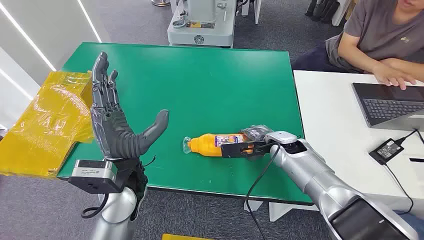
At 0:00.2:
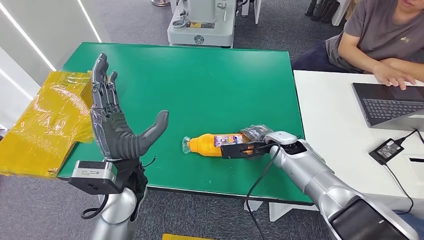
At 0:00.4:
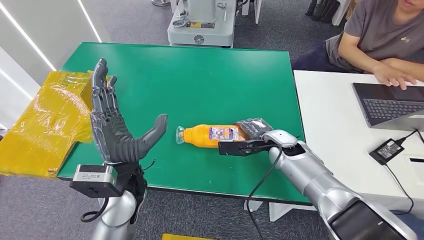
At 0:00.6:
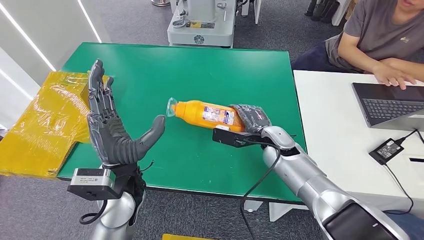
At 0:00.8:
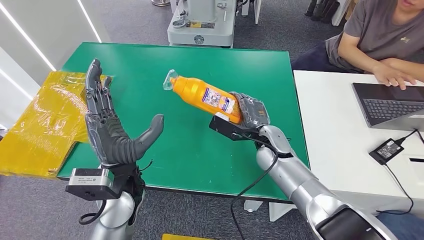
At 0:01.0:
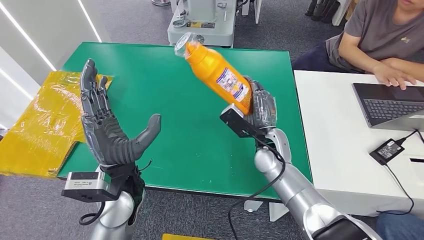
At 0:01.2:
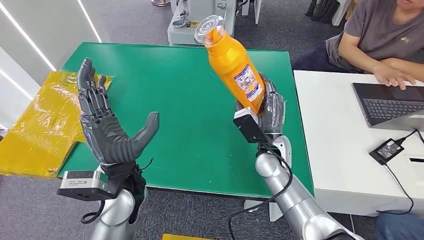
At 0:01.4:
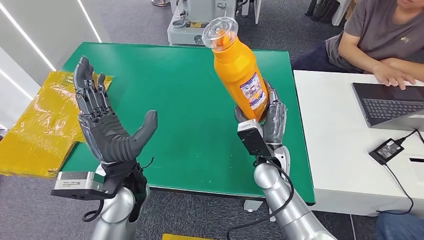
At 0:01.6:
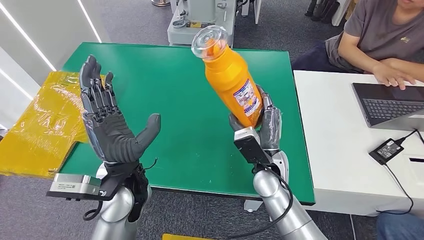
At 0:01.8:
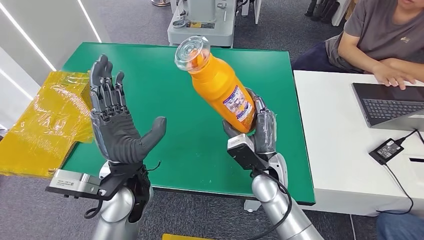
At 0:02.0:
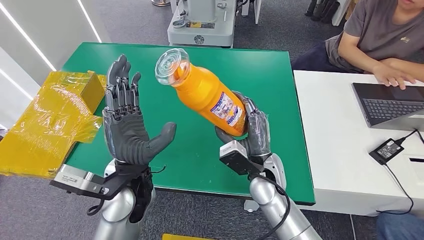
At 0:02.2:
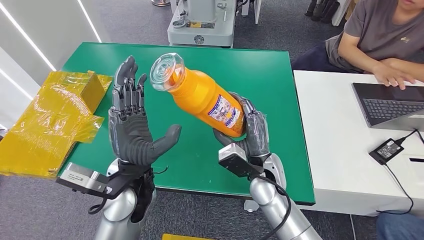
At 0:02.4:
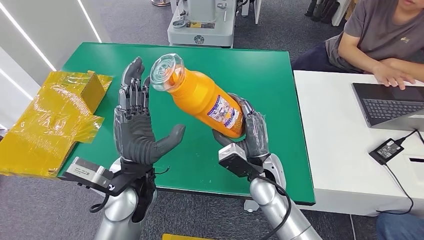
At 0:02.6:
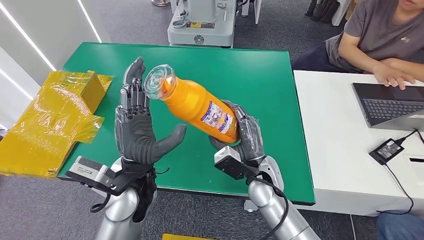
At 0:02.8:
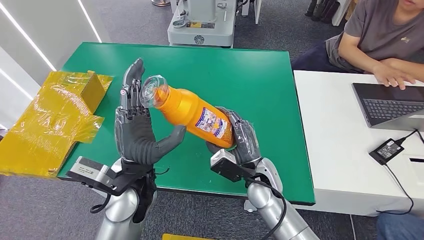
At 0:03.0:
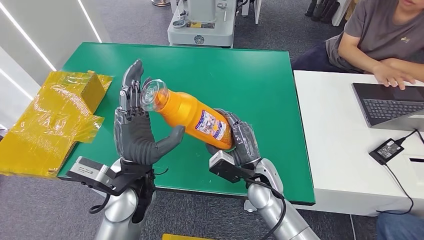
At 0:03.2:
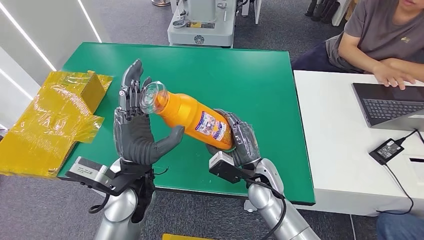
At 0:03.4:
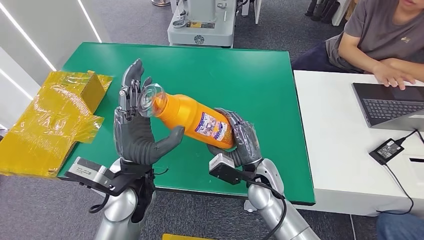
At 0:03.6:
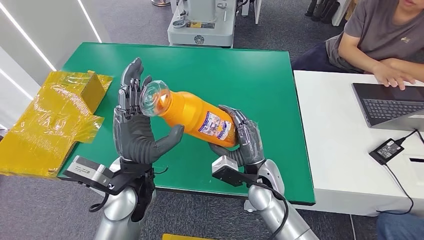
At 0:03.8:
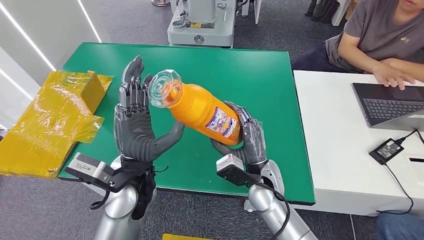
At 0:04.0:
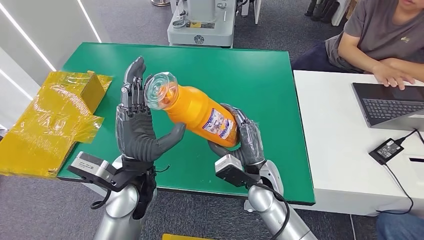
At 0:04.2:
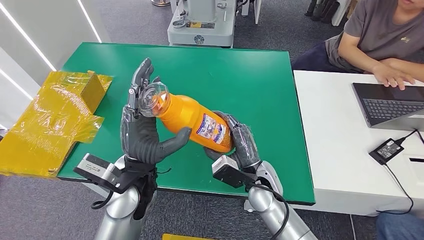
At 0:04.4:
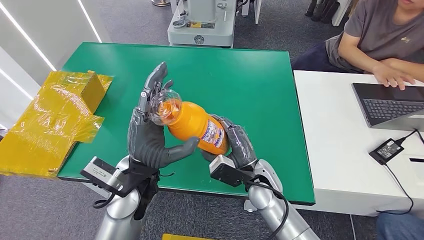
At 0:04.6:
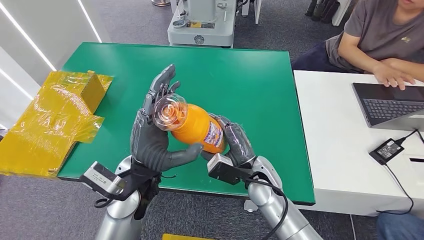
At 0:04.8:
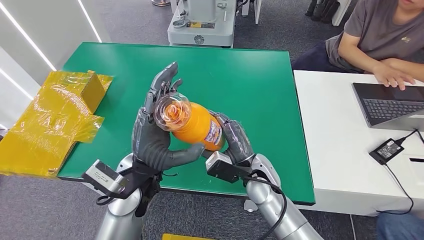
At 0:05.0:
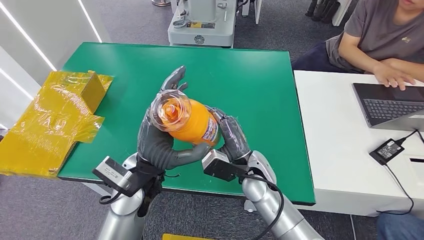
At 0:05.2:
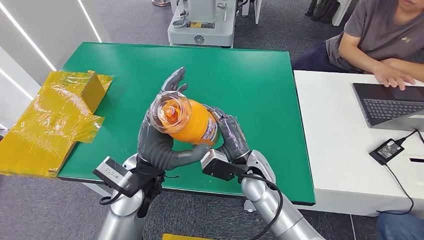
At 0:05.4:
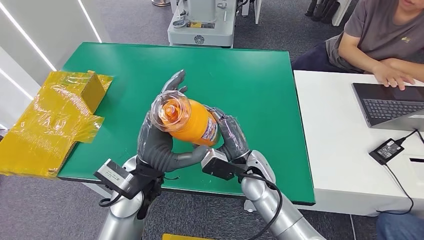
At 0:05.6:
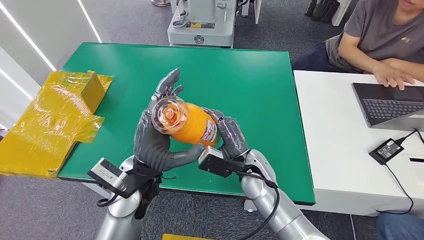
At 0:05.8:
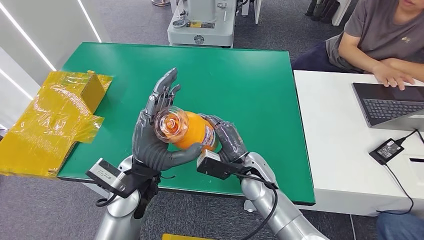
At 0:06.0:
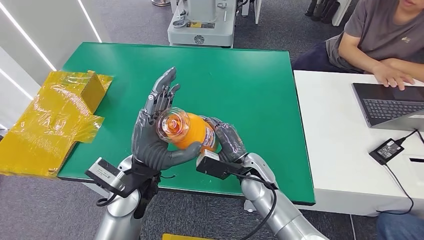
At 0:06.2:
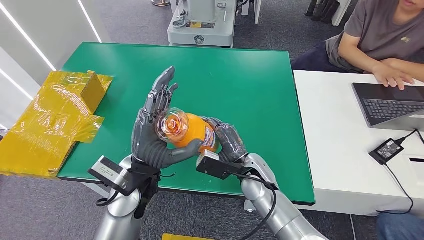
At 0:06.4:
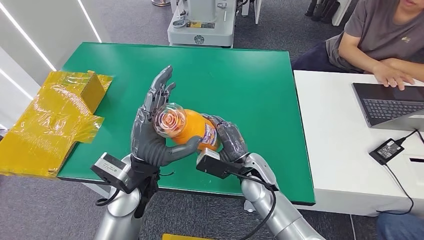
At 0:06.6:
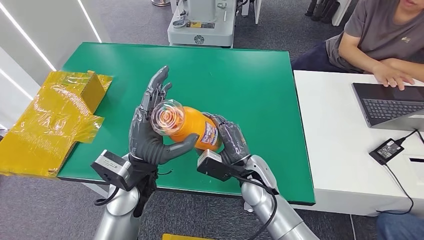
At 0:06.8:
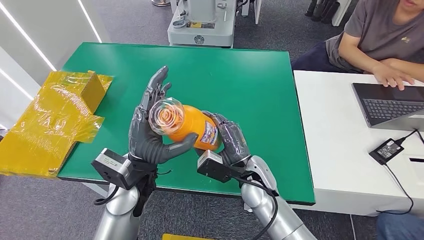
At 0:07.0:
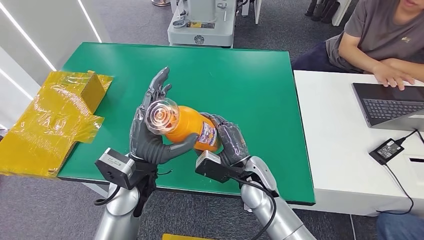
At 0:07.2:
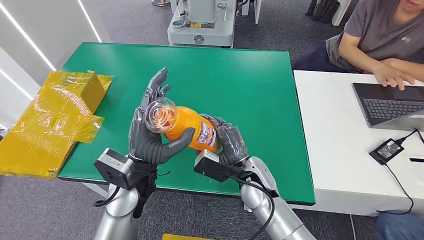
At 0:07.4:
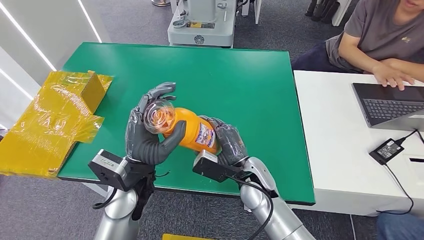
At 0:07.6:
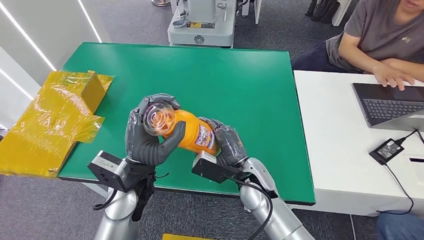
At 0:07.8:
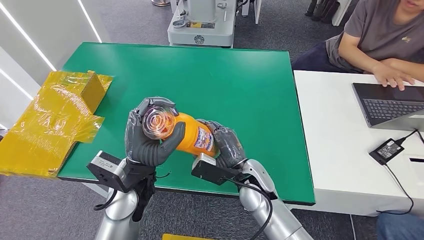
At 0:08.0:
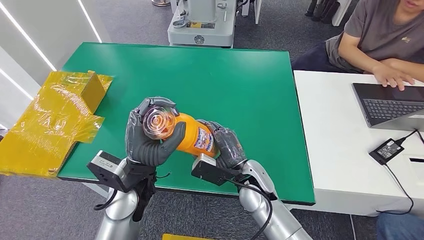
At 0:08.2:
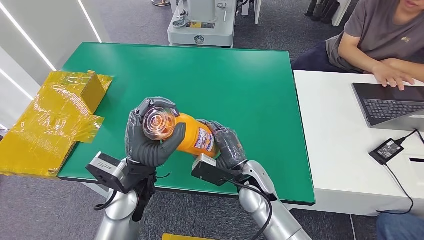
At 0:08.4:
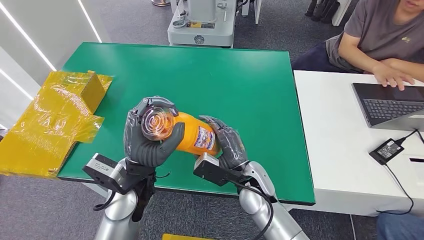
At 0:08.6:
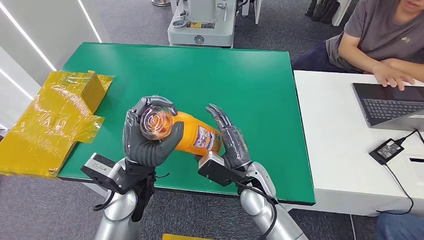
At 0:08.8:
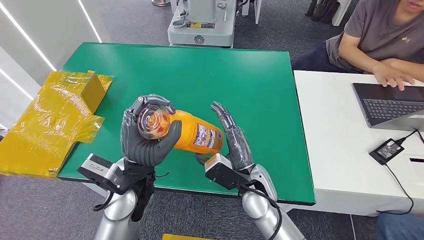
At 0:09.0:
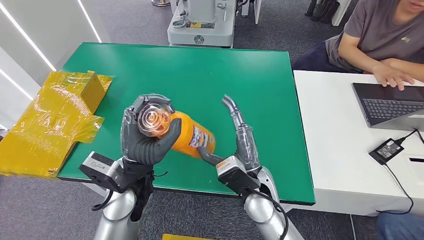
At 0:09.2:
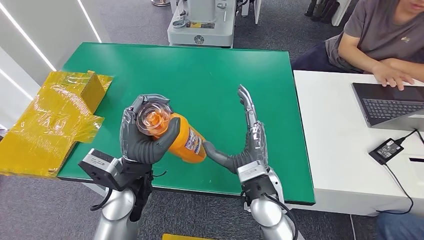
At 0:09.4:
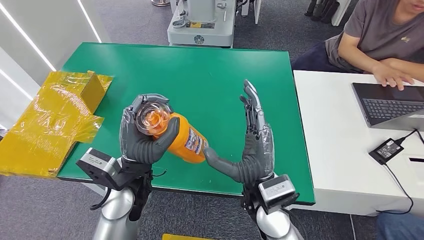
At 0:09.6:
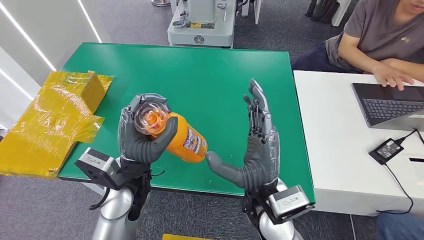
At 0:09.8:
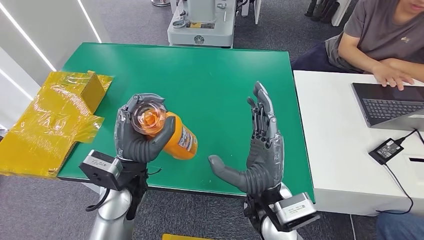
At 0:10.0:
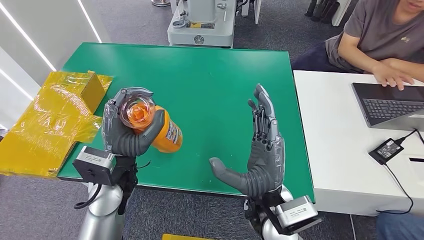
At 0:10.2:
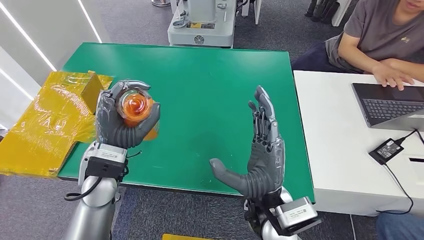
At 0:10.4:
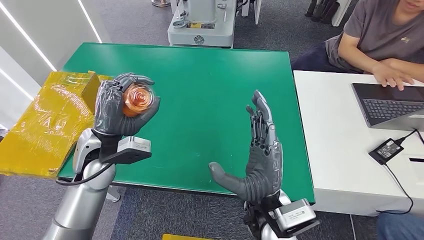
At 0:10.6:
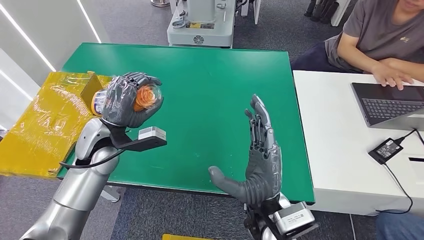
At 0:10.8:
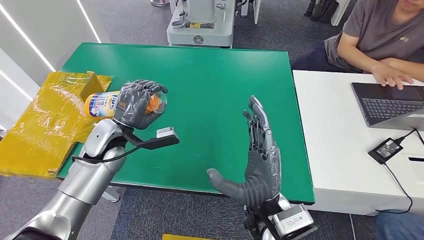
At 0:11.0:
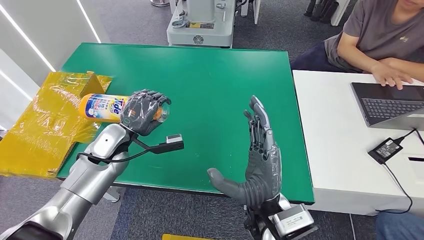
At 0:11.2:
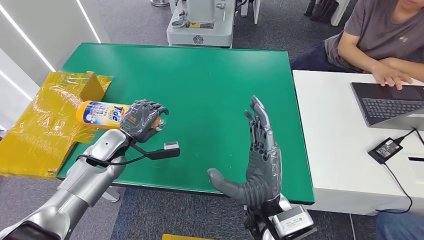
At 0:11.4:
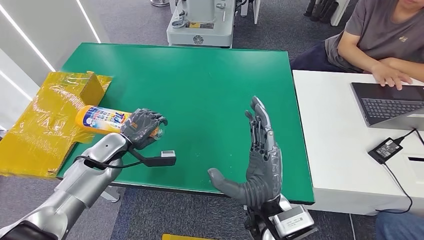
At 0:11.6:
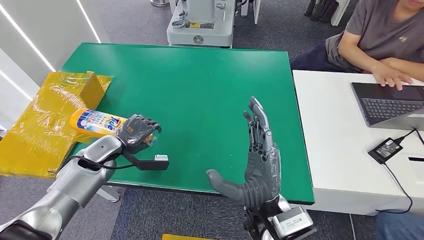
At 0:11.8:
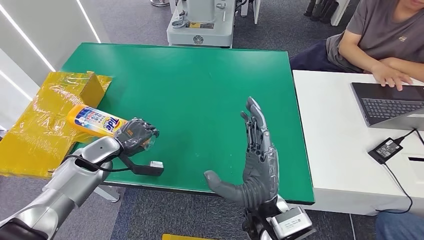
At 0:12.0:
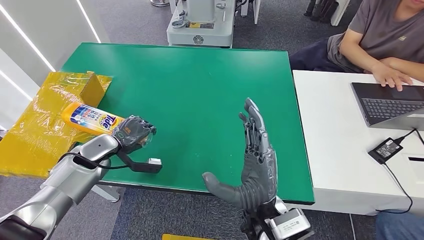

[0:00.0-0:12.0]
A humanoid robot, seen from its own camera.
Step, 0:00.0 to 0:01.8: Pick up the bottle from the table.
0:03.0 to 0:07.6: The hands make only small movements.
0:09.0 to 0:10.4: The right hand is displaced upward by about 5 cm. Meanwhile the left hand travels to the left and forward by some 15 cm.
0:10.4 to 0:12.0: The left hand travels to the left by some 20 cm.

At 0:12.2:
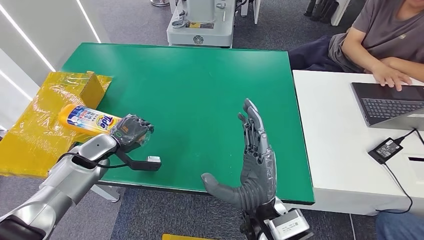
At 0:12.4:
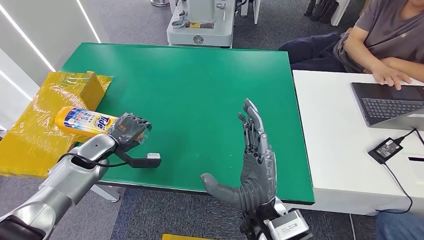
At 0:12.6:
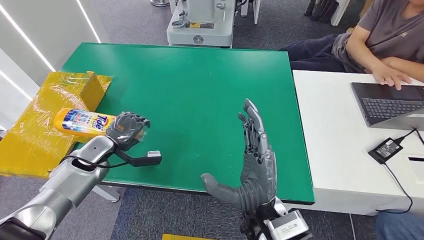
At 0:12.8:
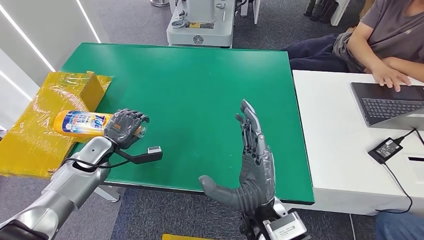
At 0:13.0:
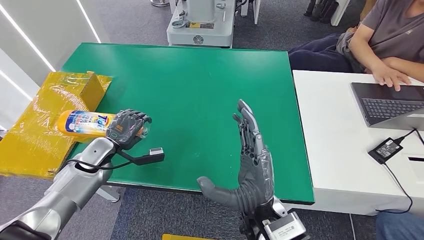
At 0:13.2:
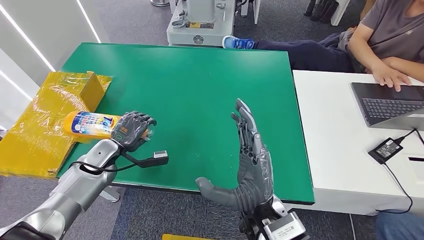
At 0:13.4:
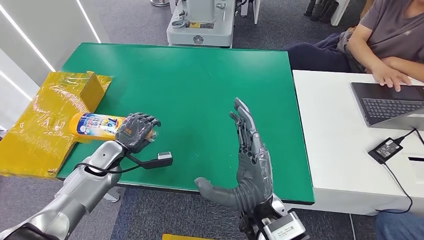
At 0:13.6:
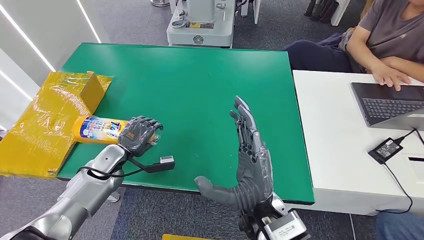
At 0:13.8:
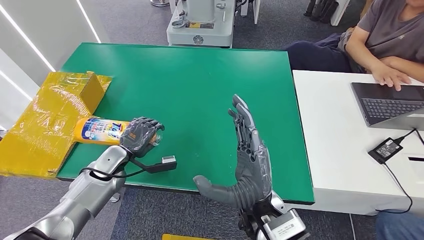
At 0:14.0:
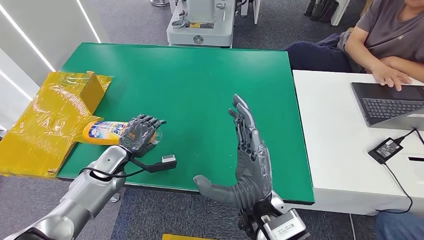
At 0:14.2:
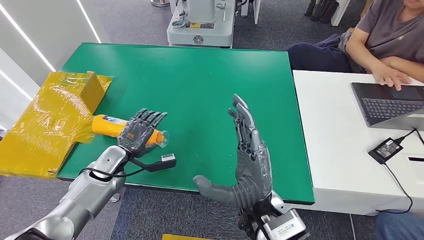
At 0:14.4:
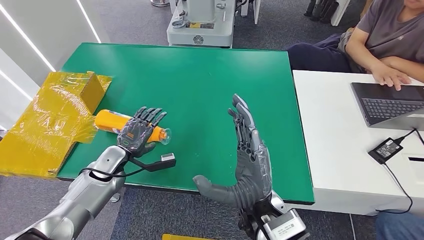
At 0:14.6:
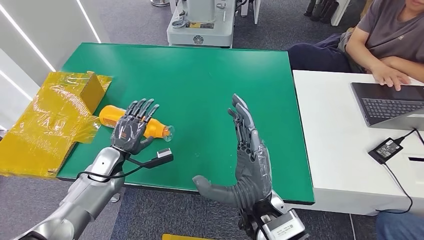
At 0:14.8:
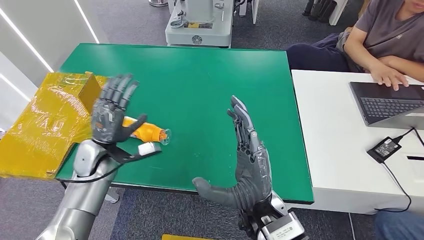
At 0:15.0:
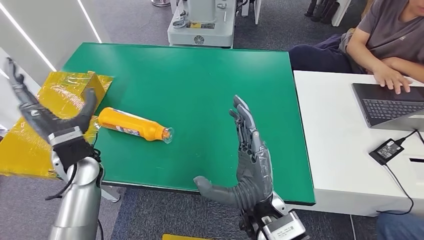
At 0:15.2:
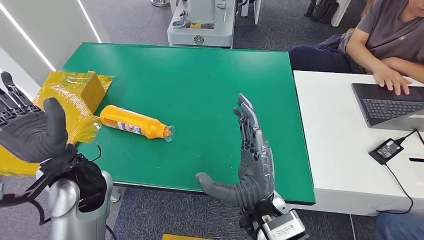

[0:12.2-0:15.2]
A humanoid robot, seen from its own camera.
Step, 0:12.2 to 0:15.2: Turn the bottle to the front side.
0:12.2 to 0:13.8: The left hand shifts about 5 cm to the right.
0:13.8 to 0:15.2: The left hand goes some 20 cm to the right and upward.

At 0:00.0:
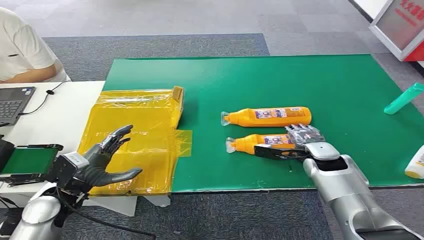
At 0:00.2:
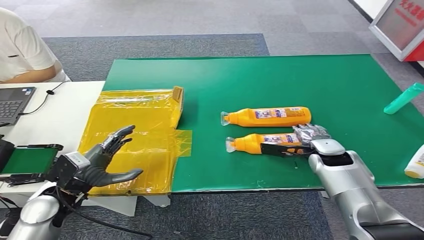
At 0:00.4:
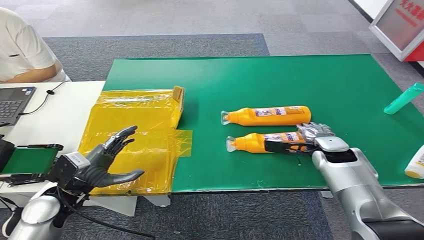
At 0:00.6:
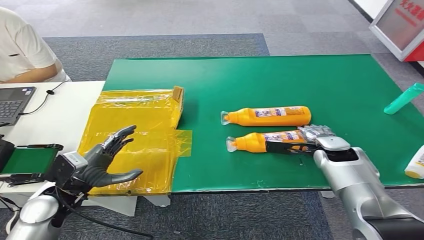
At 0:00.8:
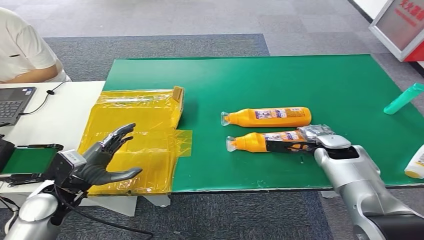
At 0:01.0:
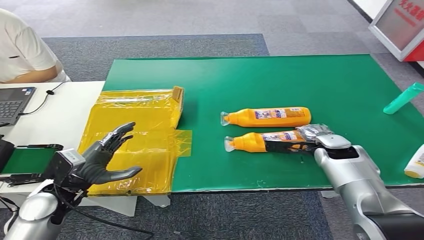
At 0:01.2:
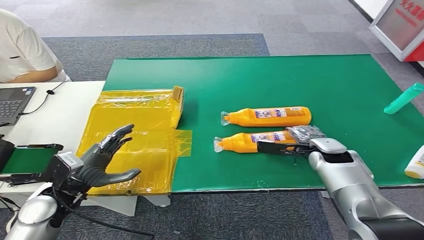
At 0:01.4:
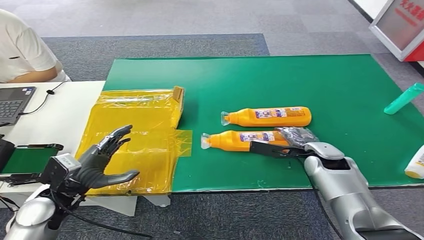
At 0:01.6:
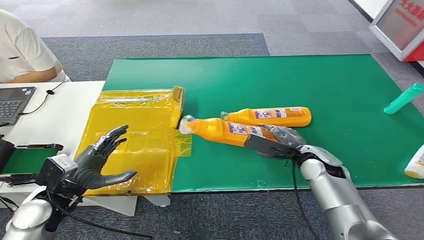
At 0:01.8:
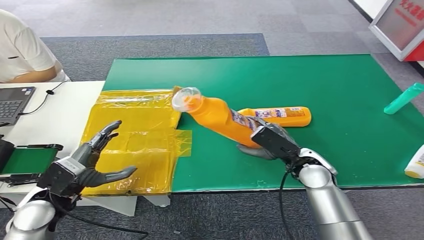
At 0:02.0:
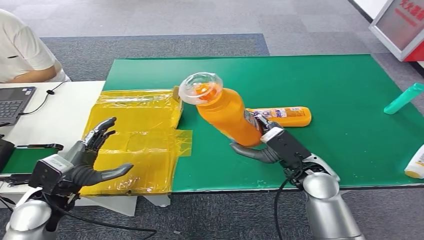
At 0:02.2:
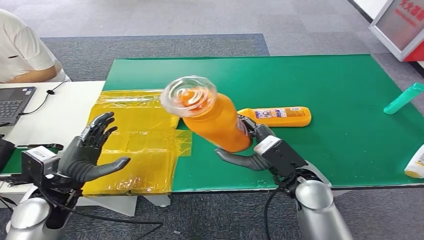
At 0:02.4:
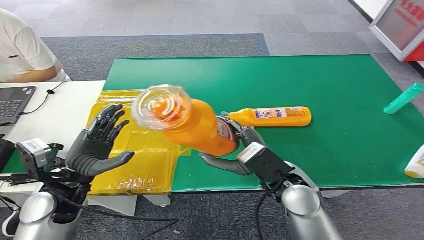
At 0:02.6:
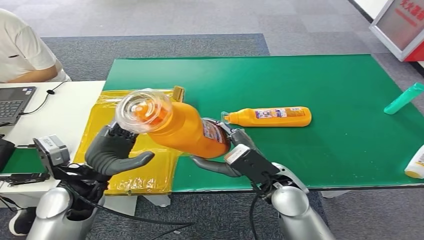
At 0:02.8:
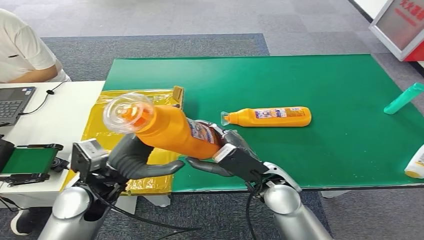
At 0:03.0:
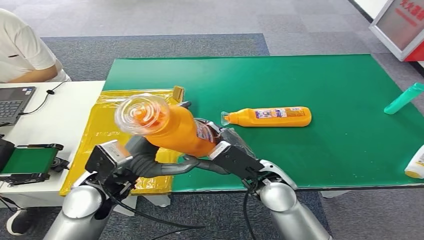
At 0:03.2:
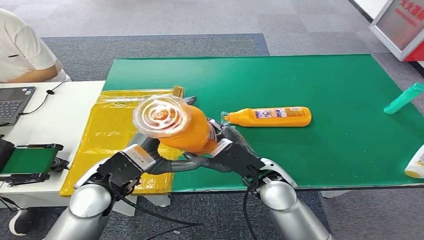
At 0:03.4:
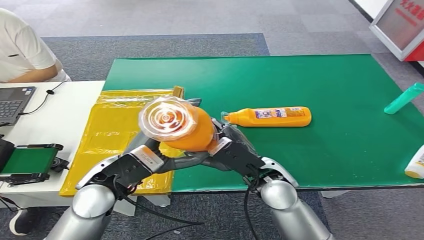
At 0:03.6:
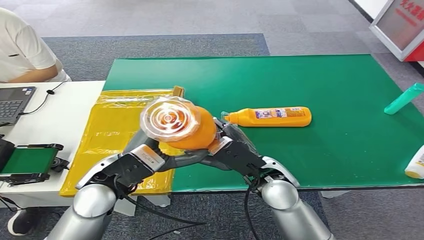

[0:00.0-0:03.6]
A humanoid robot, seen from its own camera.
Step, 0:00.0 to 0:02.8: Pick up the bottle from the table.
